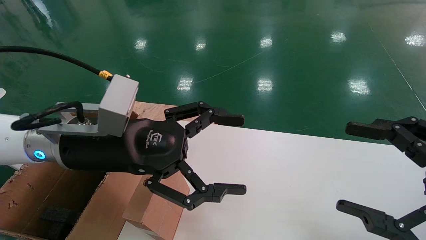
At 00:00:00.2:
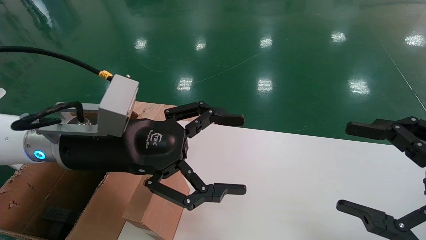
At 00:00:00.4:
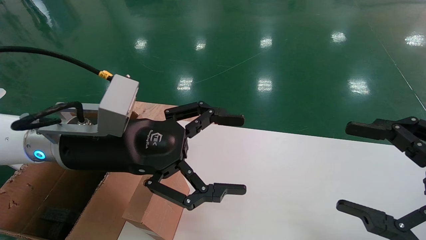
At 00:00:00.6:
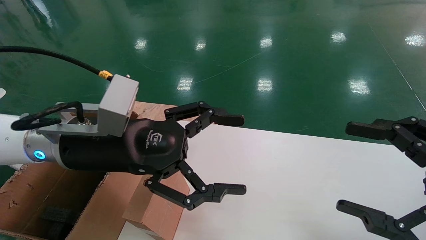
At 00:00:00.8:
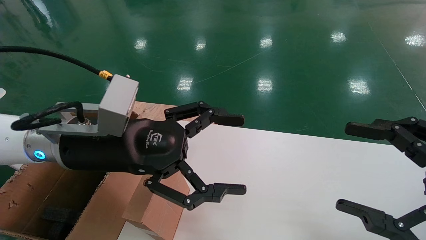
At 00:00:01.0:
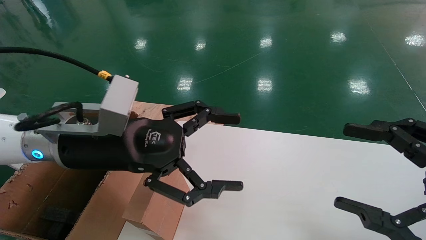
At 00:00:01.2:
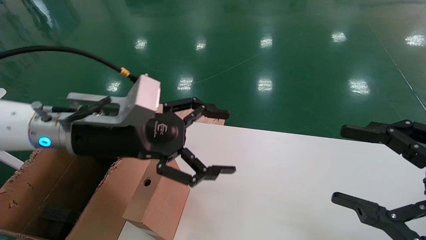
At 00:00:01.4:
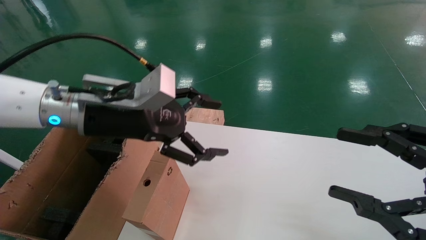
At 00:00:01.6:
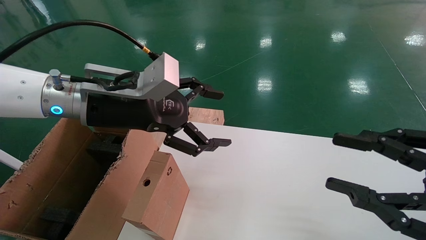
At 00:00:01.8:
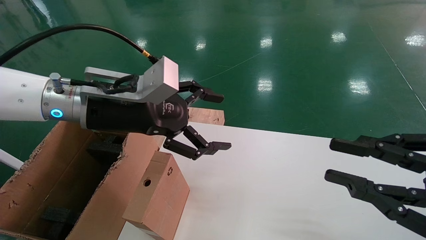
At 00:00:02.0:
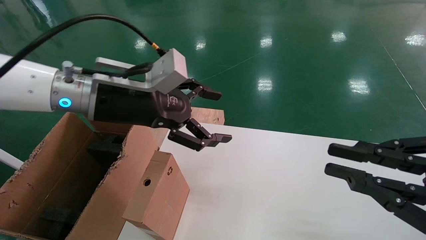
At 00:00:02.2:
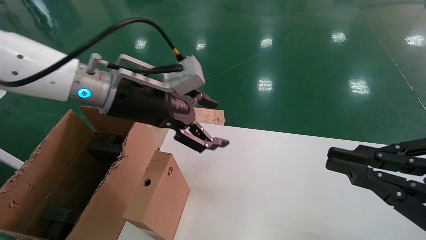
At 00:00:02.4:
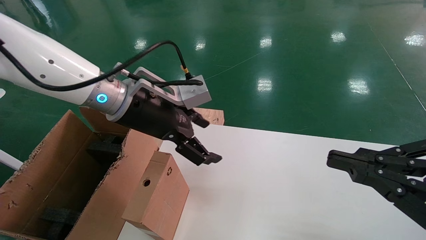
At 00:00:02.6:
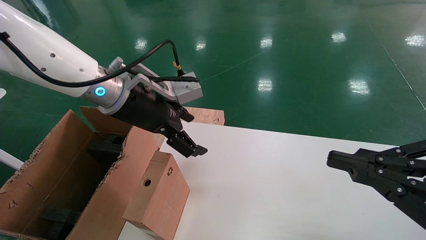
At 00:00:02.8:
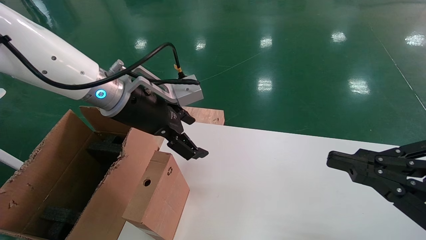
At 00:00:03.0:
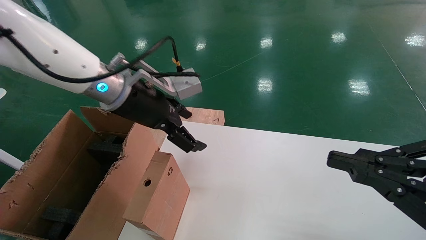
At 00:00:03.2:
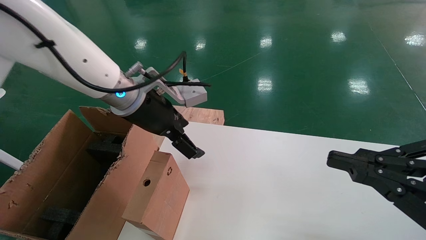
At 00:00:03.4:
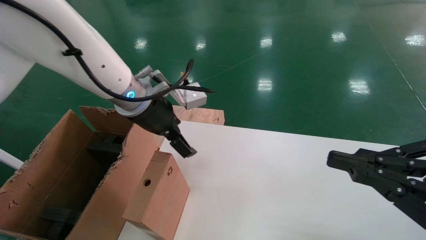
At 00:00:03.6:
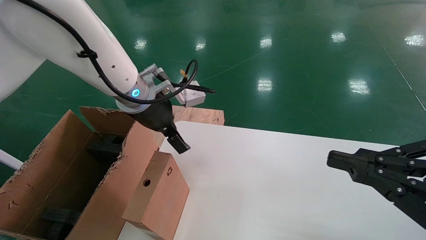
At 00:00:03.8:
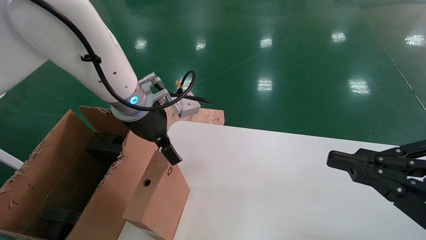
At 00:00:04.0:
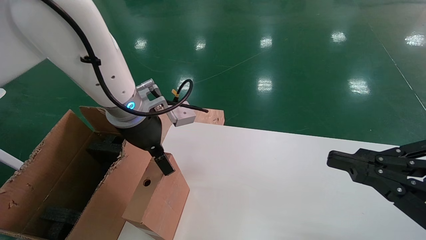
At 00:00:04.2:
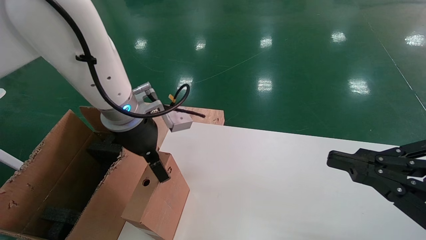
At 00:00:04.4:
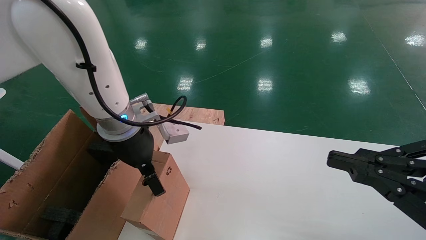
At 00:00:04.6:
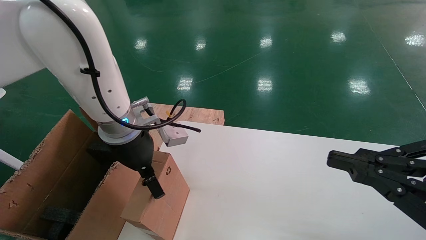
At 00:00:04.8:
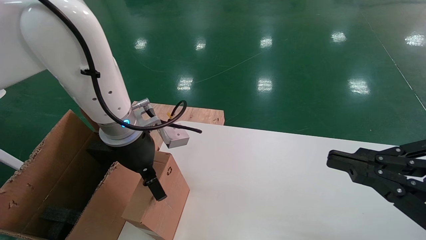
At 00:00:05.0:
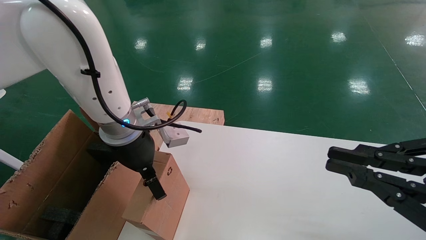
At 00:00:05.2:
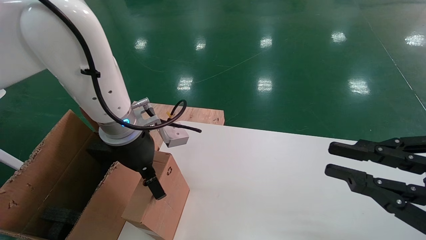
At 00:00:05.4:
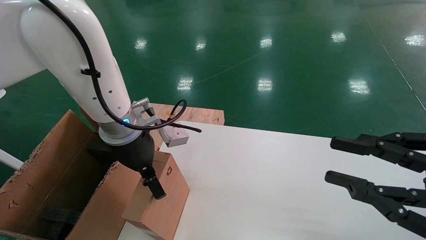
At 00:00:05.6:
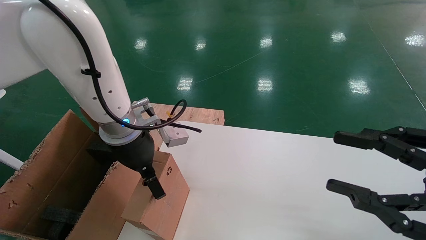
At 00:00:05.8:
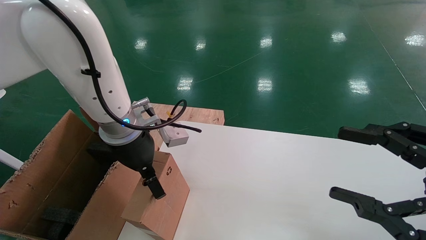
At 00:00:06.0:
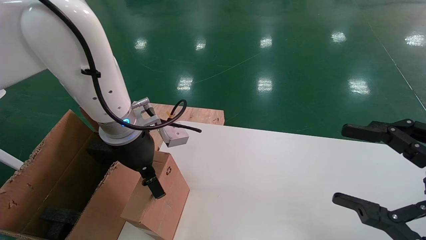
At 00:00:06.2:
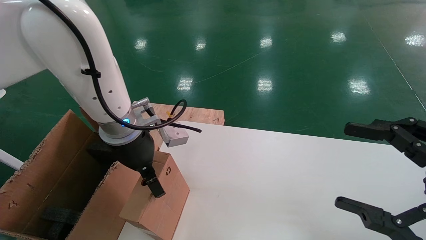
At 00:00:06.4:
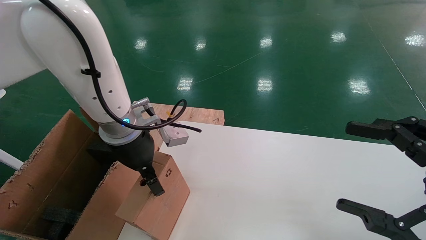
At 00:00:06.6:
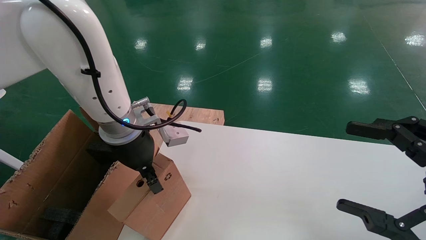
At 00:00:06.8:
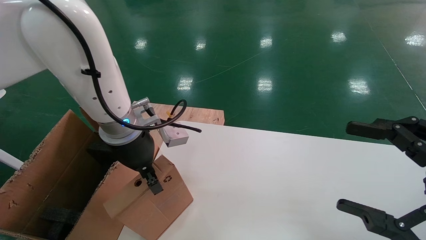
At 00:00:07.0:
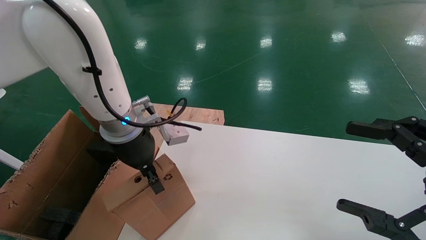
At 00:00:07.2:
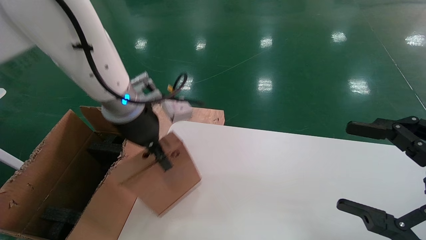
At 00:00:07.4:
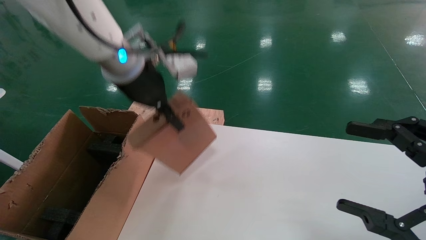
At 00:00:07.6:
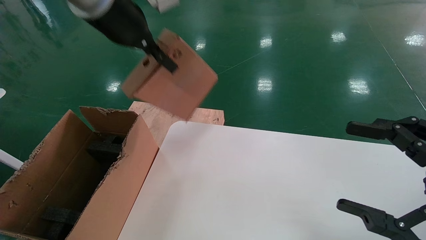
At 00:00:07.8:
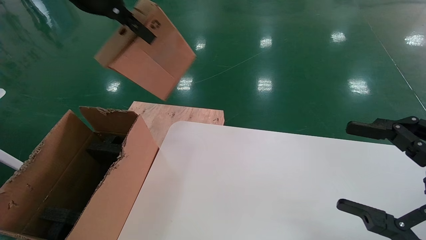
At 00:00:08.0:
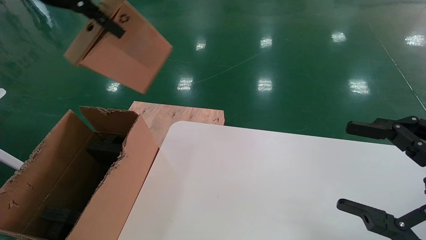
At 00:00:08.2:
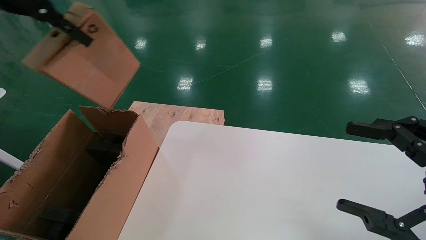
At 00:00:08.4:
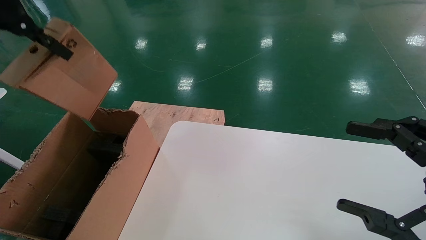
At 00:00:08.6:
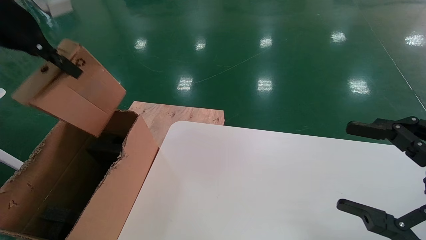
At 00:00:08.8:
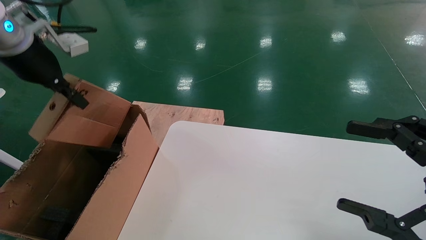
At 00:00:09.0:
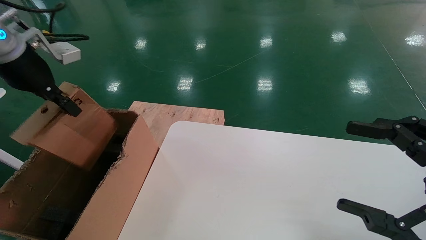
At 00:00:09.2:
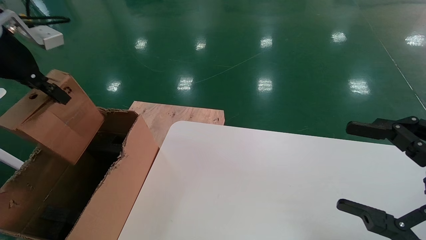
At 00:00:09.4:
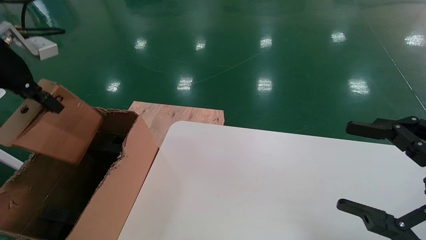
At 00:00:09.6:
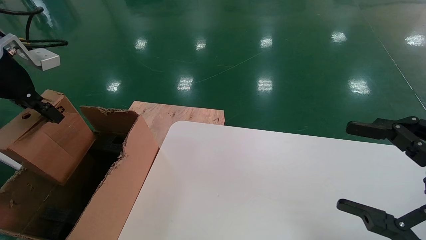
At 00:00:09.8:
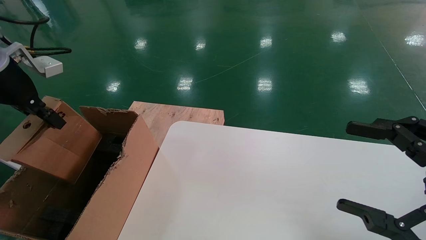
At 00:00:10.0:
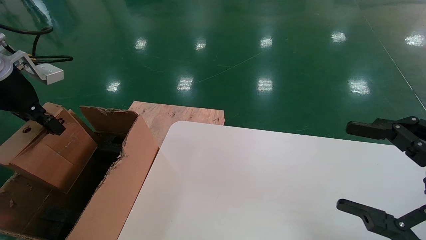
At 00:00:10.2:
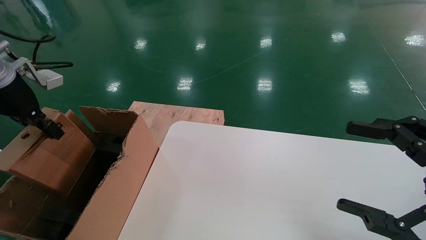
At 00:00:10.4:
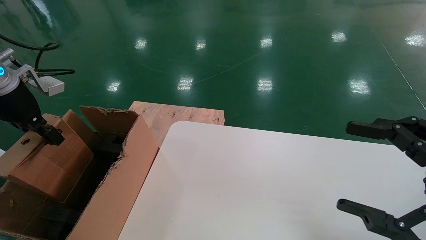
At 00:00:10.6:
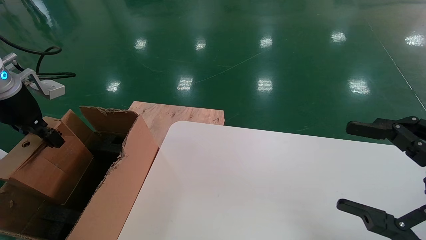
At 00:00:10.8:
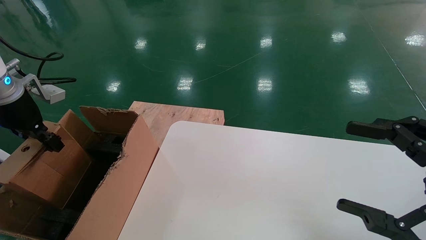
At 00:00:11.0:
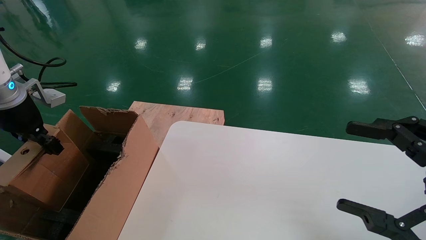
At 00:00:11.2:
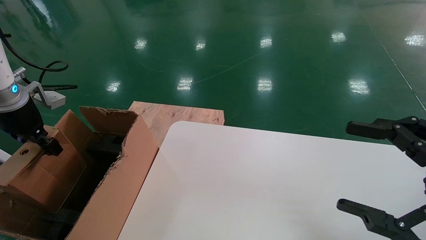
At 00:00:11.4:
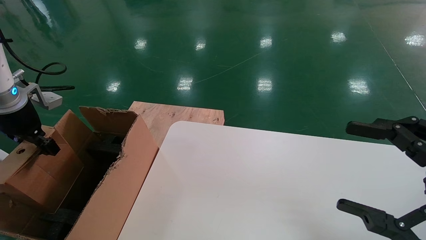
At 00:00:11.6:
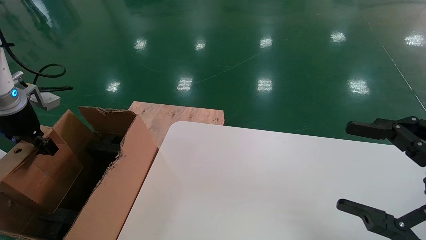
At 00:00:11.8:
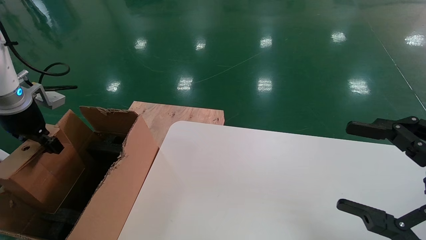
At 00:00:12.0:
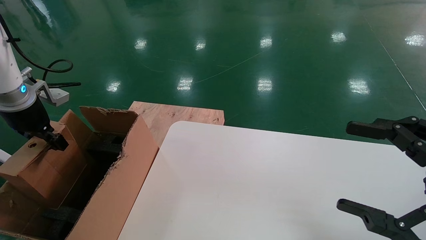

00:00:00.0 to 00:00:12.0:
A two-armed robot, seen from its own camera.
Task of the whole recording: place the small box on the table into the large box on the left.
Step, 00:00:01.4 to 00:00:07.0: Pick up the mouse and the power cord paper box.
00:00:00.0 to 00:00:01.6: The right gripper closes, while the left gripper changes place by roughly 5 cm.
00:00:01.6 to 00:00:03.0: The right gripper closes up, while the left gripper moves forward, approximately 5 cm.
00:00:04.4 to 00:00:06.0: The right gripper opens its fingers.
00:00:06.0 to 00:00:07.6: The left gripper is displaced upward by some 20 cm, and closes up.
00:00:07.6 to 00:00:09.0: The left gripper moves to the left, roughly 20 cm.
00:00:09.0 to 00:00:10.4: The left gripper goes roughly 10 cm downward.
00:00:10.4 to 00:00:12.0: The left gripper changes place by roughly 5 cm.

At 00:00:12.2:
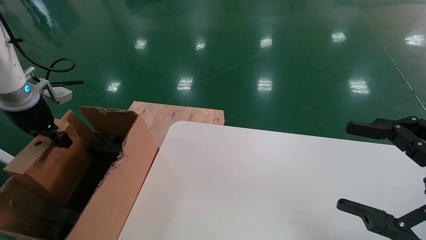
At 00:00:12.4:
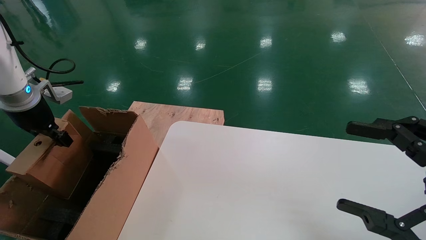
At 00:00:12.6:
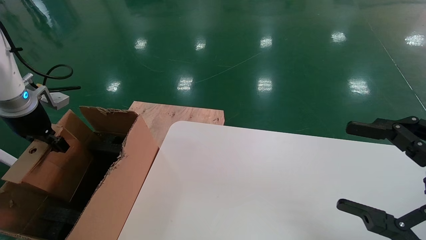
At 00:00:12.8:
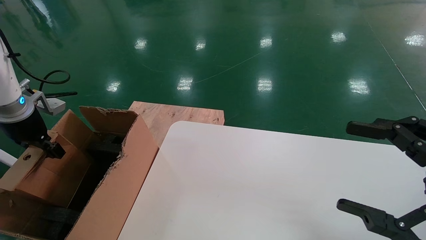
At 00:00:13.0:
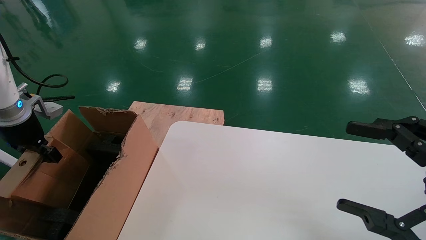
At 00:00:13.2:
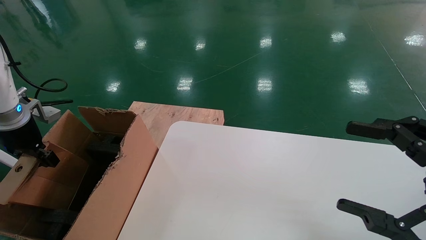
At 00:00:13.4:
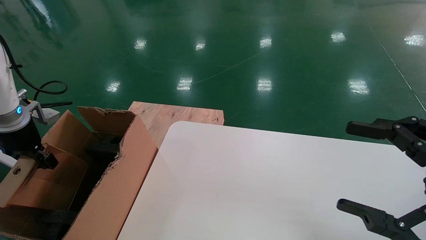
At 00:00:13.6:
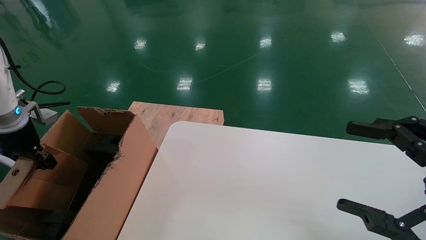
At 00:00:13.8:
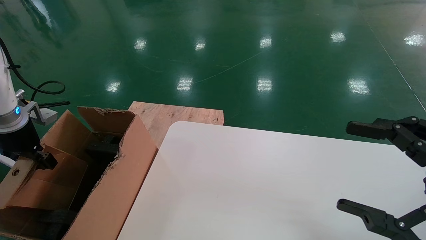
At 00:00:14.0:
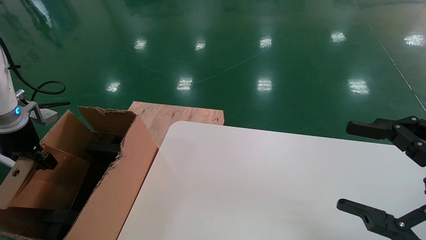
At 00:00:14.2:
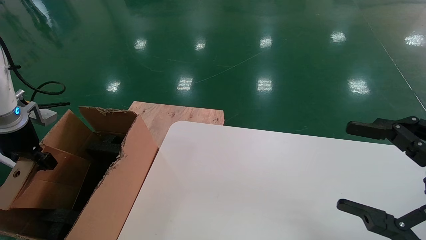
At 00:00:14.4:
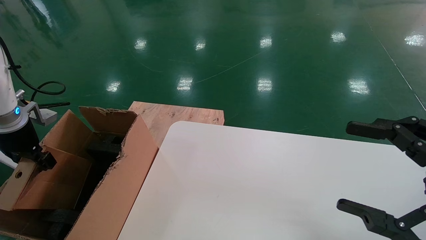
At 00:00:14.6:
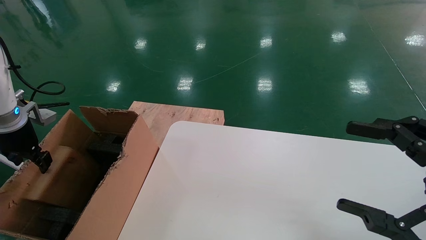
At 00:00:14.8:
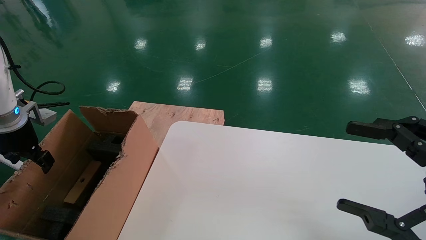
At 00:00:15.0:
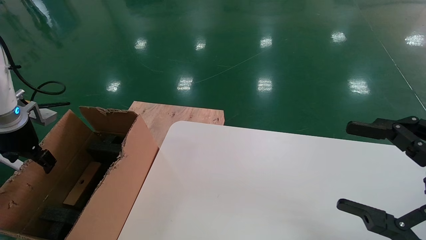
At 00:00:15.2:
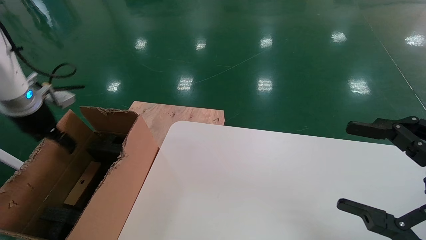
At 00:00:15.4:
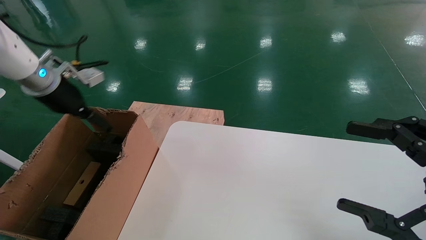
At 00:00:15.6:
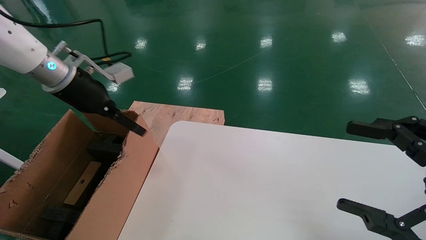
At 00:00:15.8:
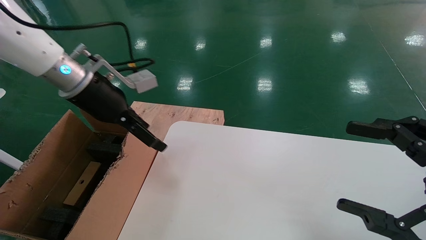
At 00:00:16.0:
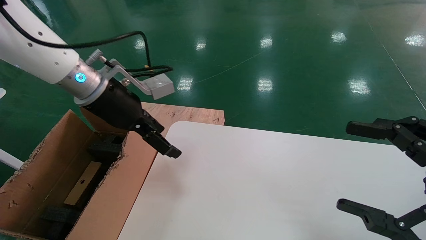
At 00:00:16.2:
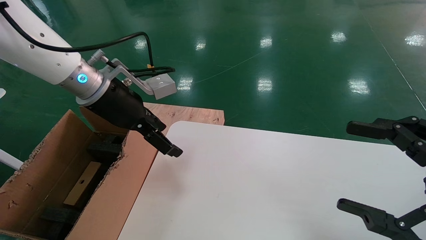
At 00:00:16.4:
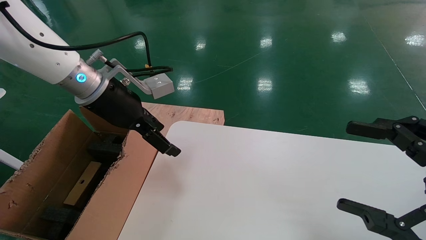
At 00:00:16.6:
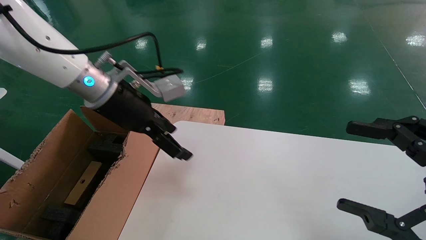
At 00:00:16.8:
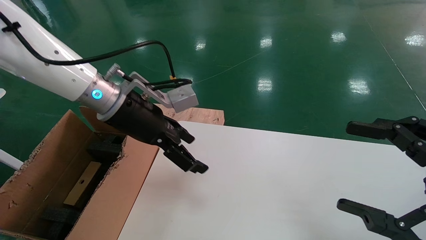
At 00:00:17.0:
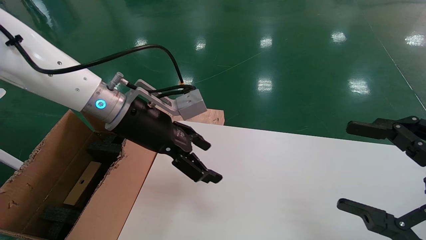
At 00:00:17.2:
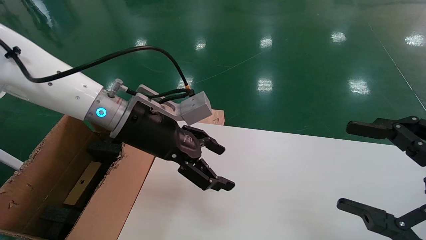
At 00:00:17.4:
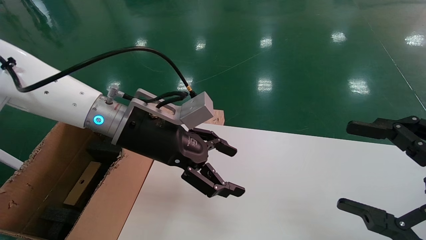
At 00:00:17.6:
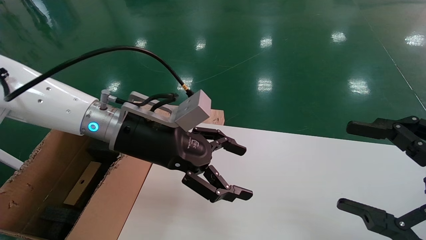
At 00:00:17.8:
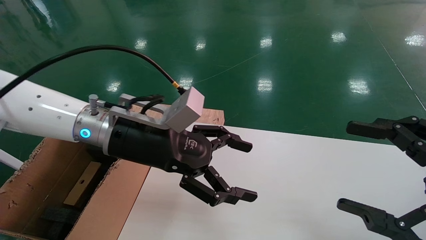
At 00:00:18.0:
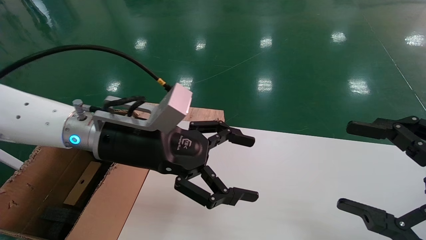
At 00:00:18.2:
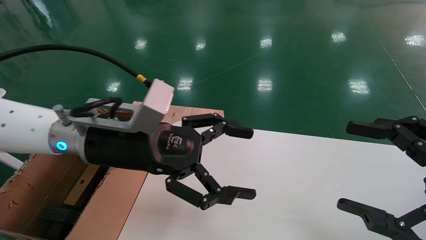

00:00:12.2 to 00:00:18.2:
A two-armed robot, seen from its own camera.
Task of the whole recording: place the small box on the table into the large box on the left.
Step, 00:00:12.2 to 00:00:14.8: Place the mouse and the power cord paper box into the container.
00:00:12.2 to 00:00:13.8: The left gripper changes place by some 5 cm.
00:00:13.8 to 00:00:15.2: The left gripper changes place by about 5 cm, and opens its fingers.
00:00:15.2 to 00:00:16.6: The left gripper travels to the right by about 20 cm.
00:00:16.6 to 00:00:18.2: The left gripper goes about 5 cm backward.
